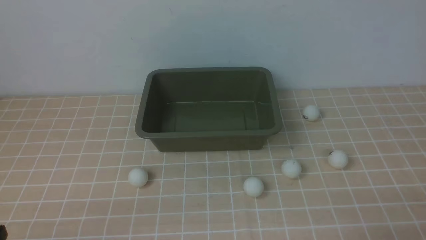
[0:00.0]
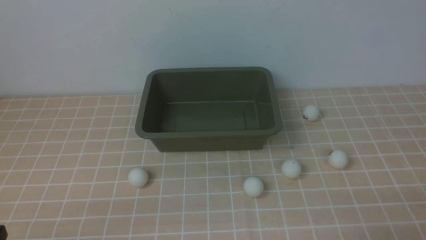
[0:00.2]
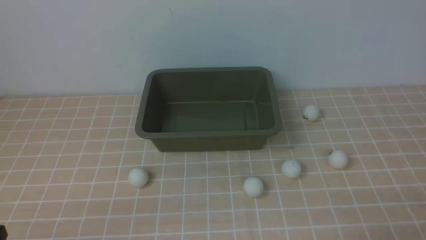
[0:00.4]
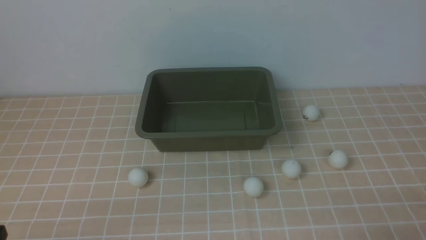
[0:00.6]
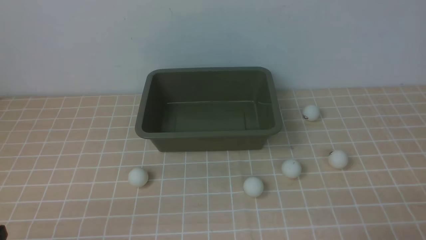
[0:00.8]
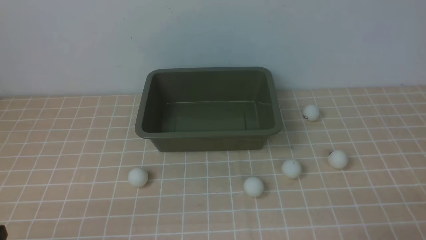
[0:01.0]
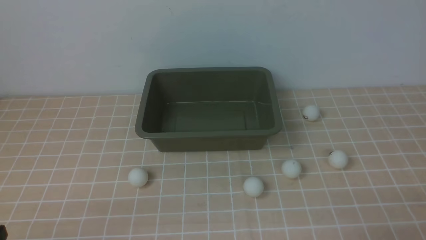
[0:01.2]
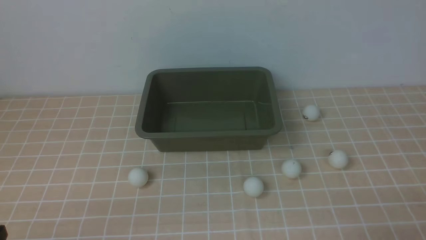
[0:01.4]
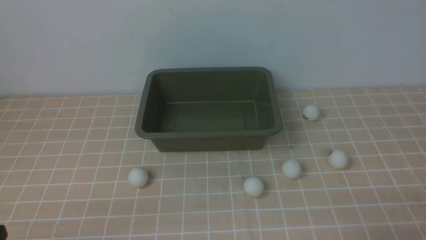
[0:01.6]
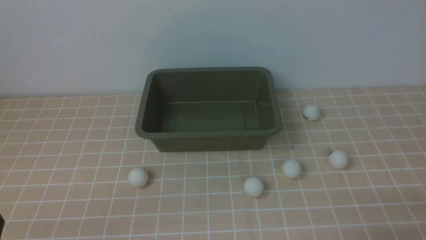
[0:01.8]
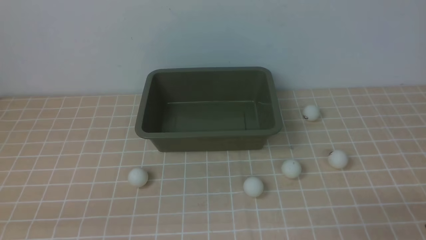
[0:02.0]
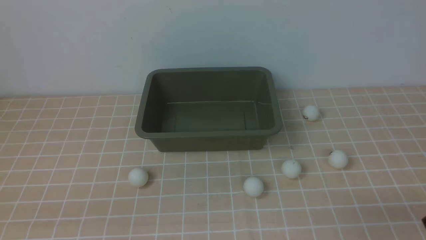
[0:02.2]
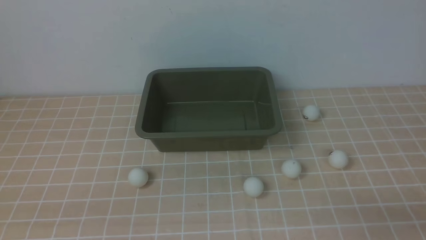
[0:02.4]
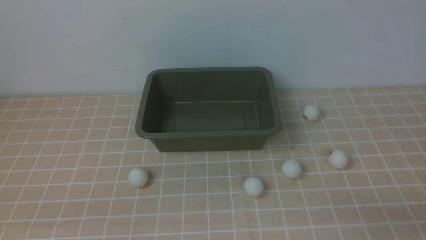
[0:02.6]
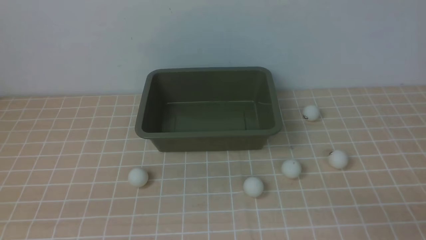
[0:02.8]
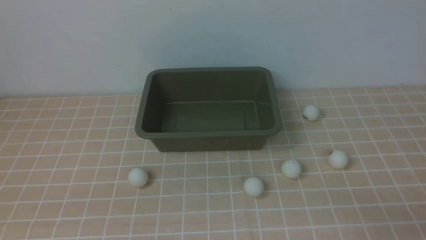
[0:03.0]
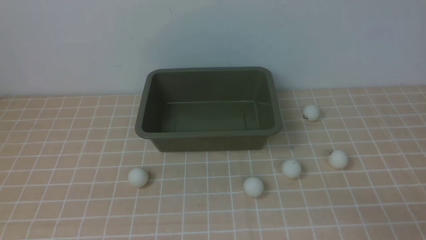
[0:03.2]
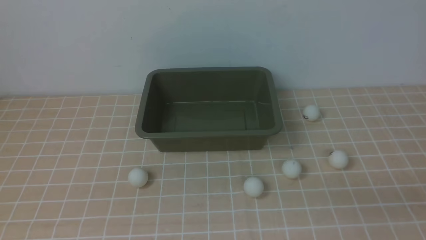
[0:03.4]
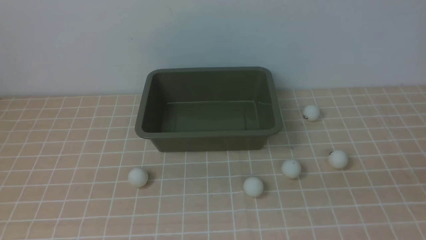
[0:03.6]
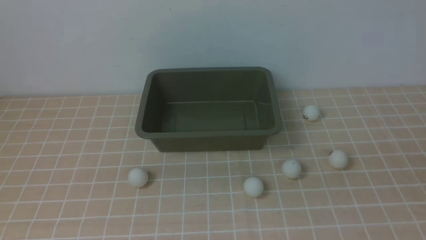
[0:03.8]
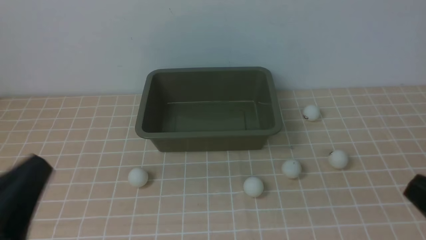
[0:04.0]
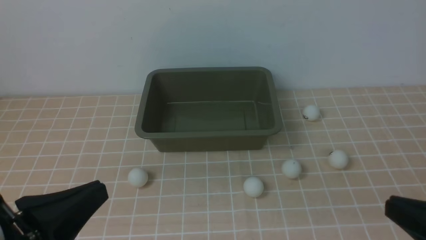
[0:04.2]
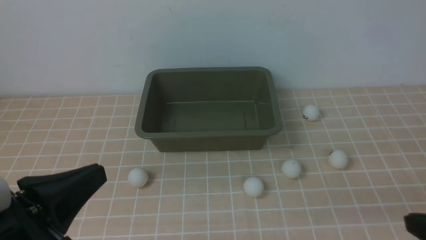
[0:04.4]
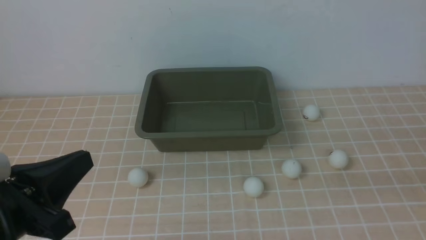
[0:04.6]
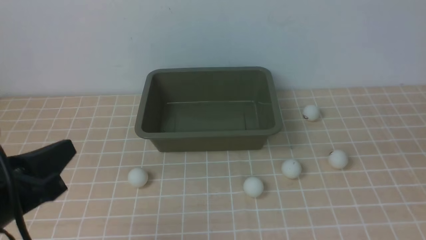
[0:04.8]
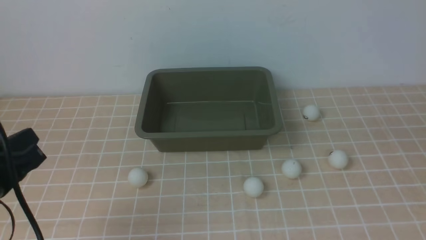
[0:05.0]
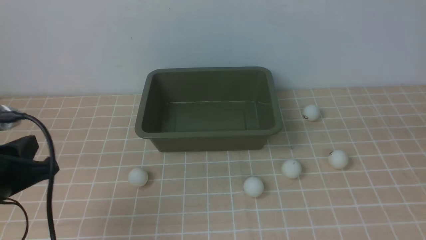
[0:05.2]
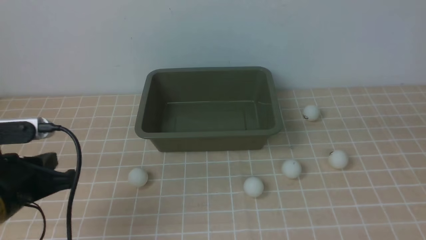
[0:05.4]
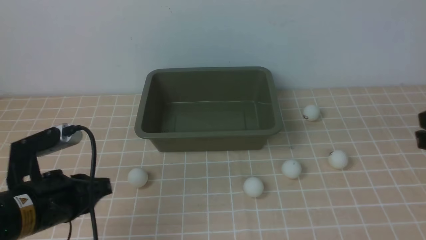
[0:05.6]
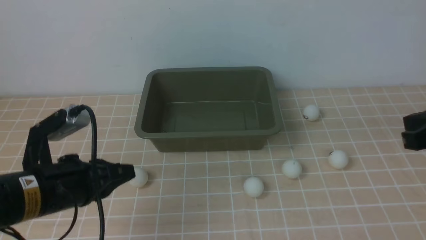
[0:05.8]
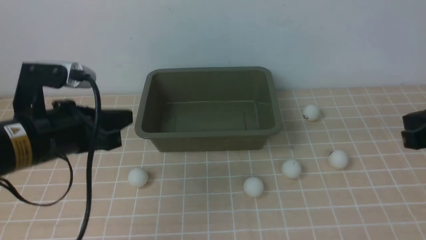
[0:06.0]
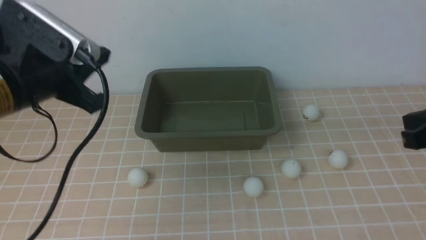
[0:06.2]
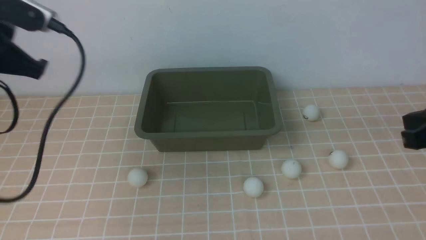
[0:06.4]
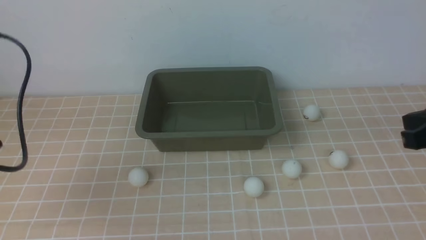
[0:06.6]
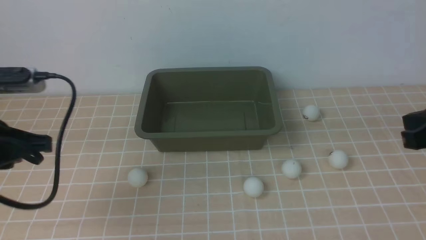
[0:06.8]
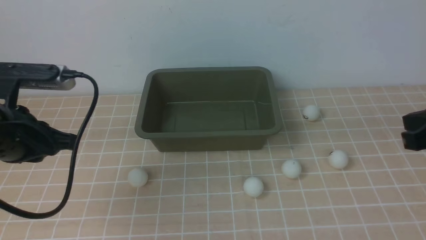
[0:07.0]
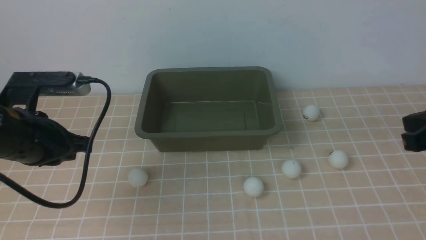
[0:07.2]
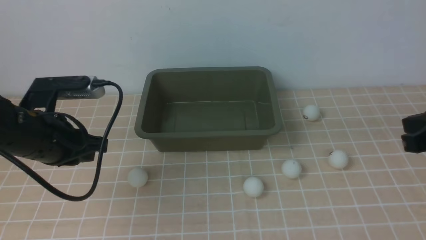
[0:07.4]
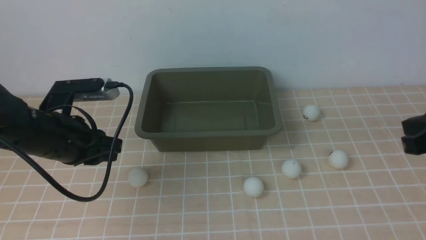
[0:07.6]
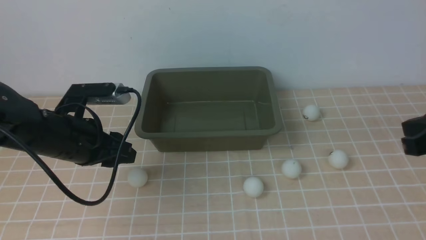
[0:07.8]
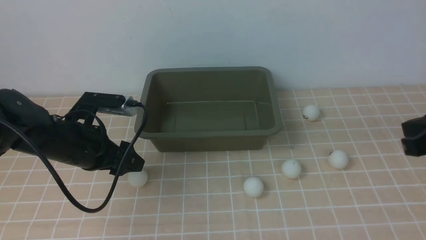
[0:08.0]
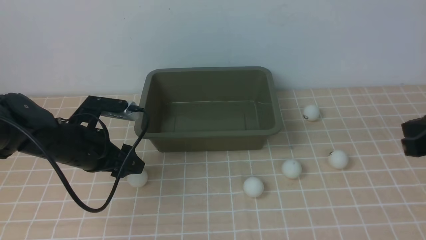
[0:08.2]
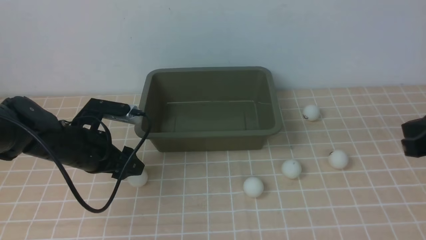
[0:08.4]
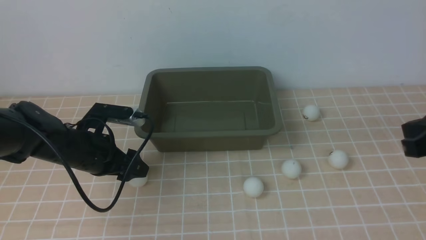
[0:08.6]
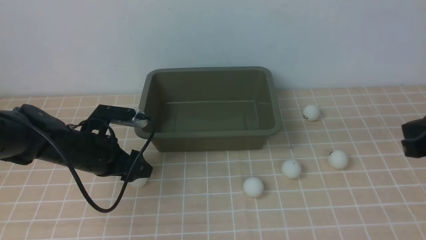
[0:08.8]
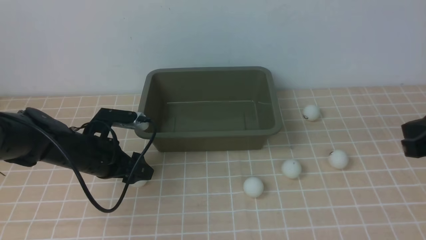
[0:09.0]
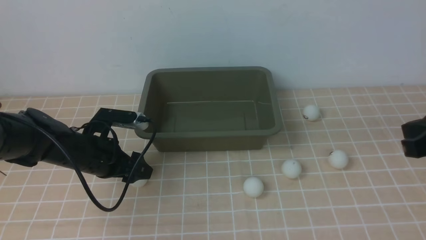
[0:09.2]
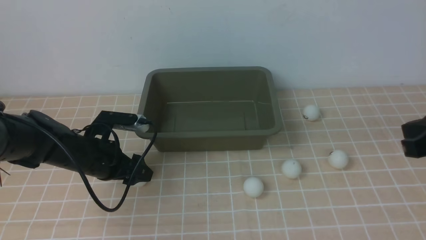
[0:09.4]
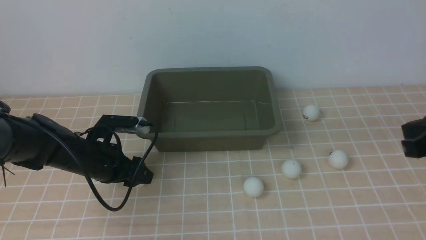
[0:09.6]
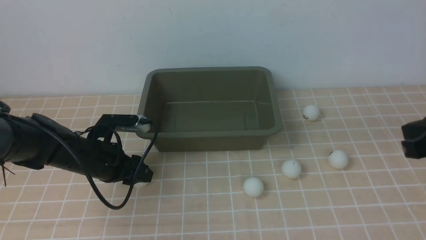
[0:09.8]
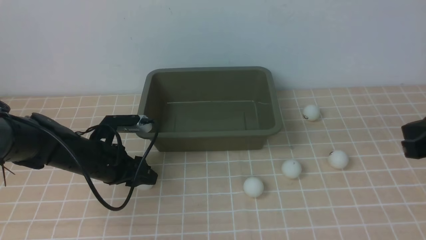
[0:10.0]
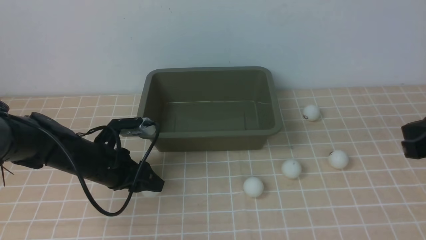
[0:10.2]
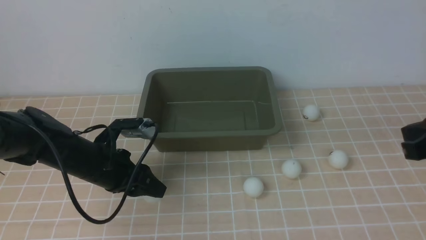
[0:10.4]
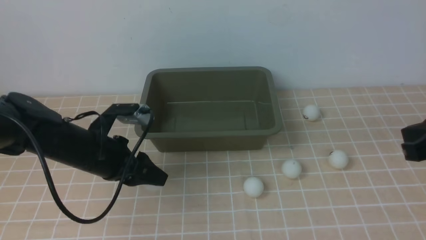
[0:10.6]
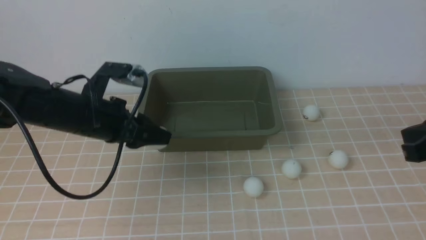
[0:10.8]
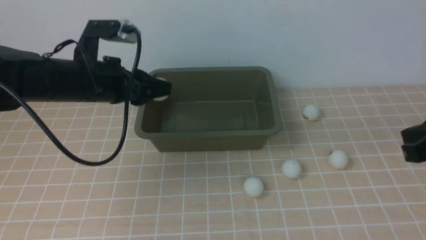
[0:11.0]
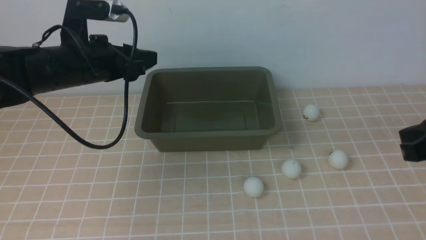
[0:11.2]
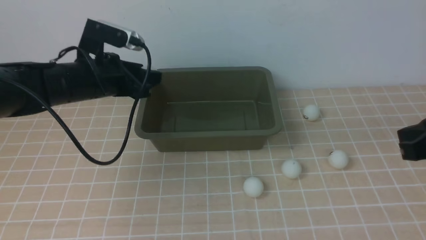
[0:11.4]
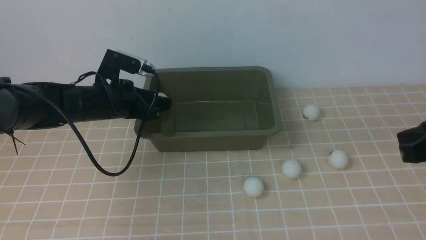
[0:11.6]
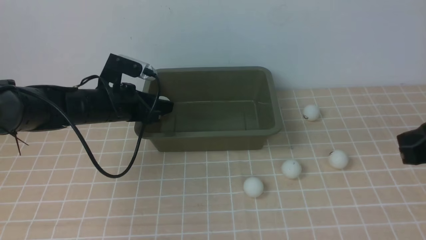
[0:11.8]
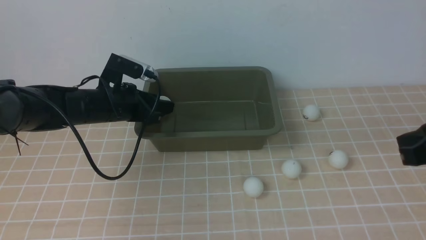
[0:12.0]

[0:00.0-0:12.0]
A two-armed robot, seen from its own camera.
Step, 0:00.0 to 0:10.4: use the left arm to clamp the table tennis ball closest to it.
0:00.0 to 0:01.6: Neither gripper changes place.
0:03.0 to 0:04.4: The left gripper heads to the right, covering some 5 cm.
0:04.4 to 0:06.0: The grippers both shift forward by some 10 cm.
0:06.0 to 0:07.6: The left gripper goes roughly 5 cm forward and downward.
0:07.6 to 0:09.0: The left gripper heads downward, covering approximately 10 cm, and opens.
0:09.0 to 0:10.4: The left gripper closes its fingers.
0:10.4 to 0:12.0: The left gripper goes about 10 cm forward, and travels upward and back again, roughly 10 cm each way.

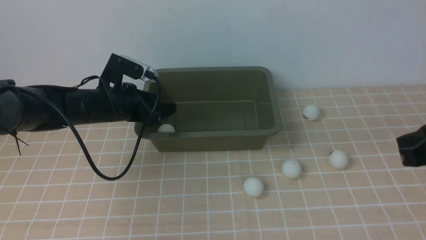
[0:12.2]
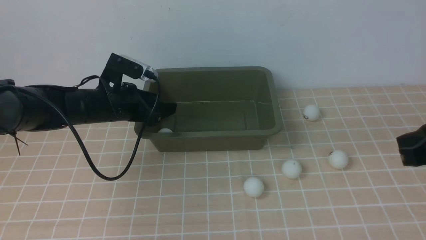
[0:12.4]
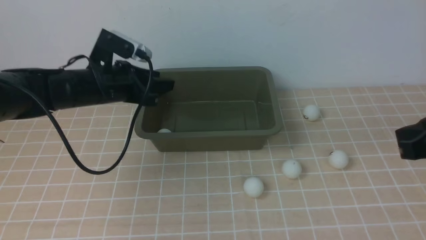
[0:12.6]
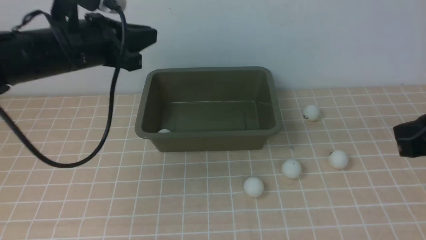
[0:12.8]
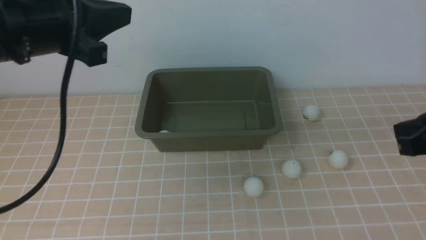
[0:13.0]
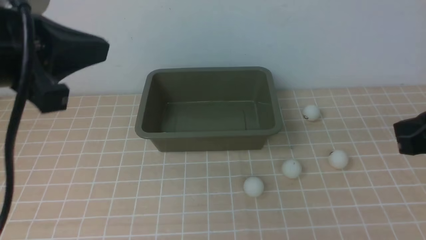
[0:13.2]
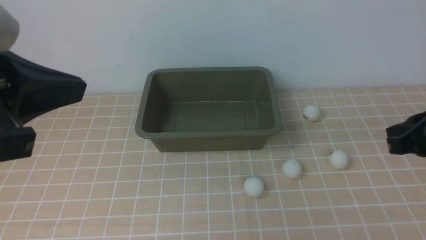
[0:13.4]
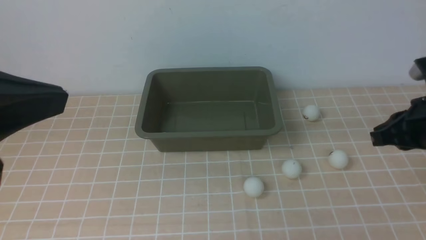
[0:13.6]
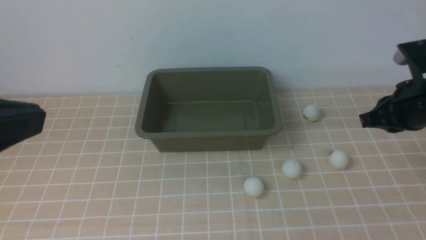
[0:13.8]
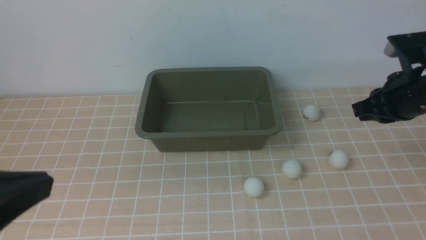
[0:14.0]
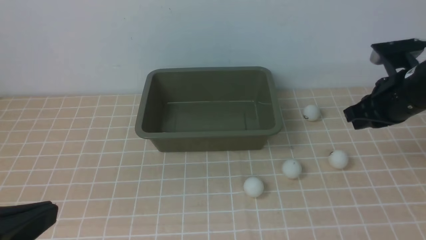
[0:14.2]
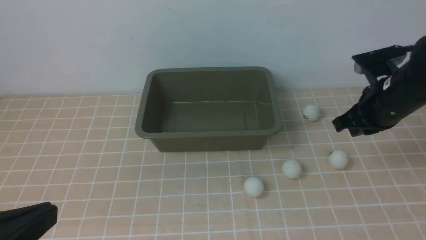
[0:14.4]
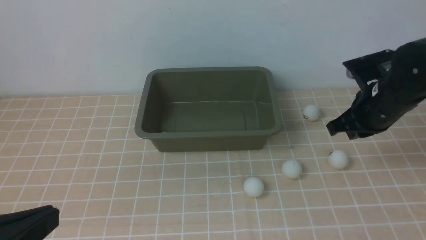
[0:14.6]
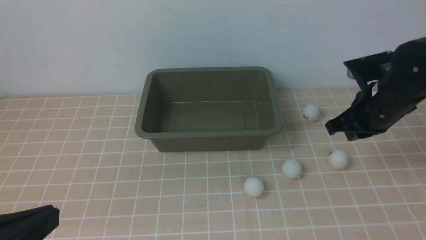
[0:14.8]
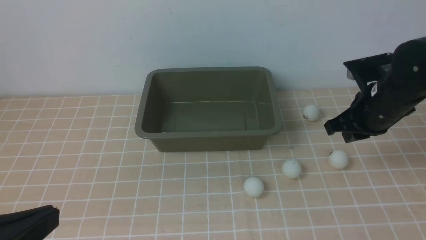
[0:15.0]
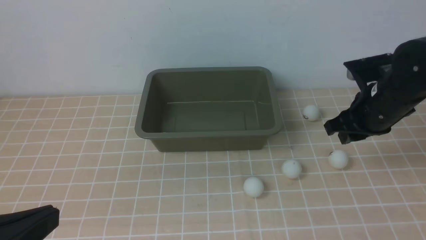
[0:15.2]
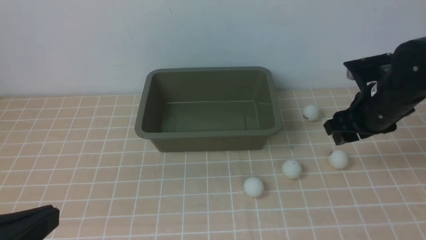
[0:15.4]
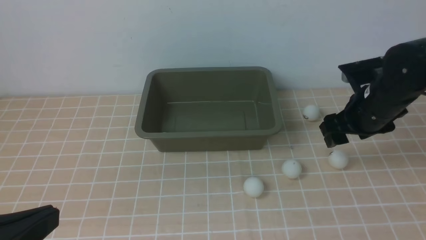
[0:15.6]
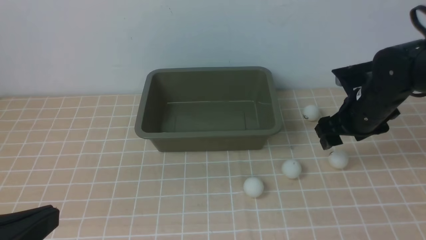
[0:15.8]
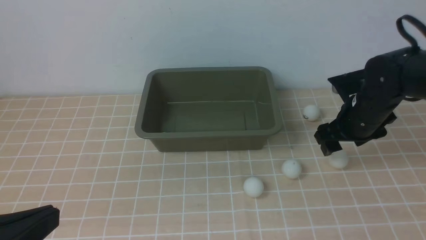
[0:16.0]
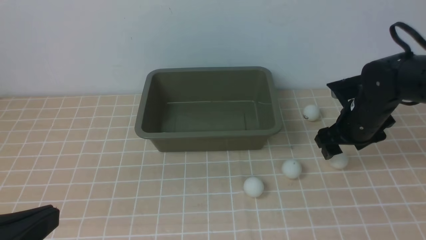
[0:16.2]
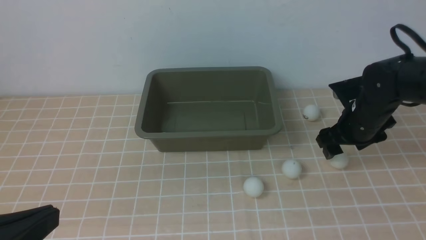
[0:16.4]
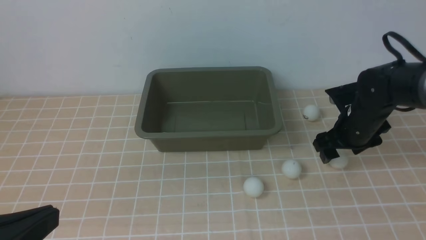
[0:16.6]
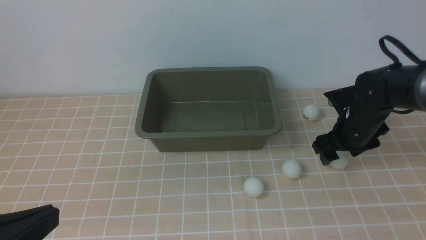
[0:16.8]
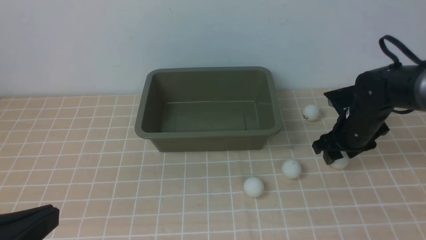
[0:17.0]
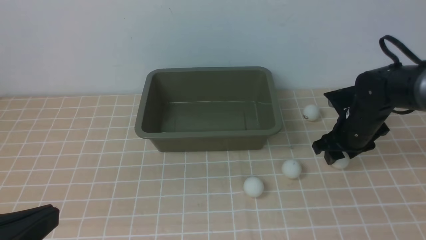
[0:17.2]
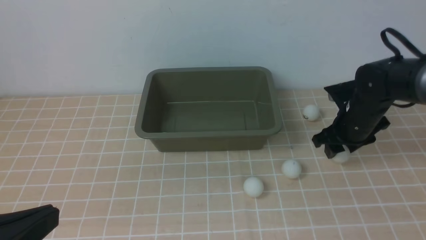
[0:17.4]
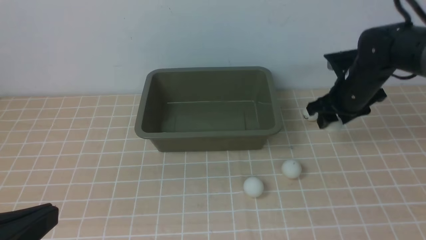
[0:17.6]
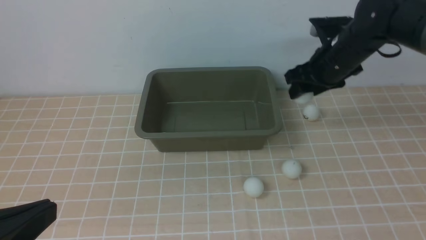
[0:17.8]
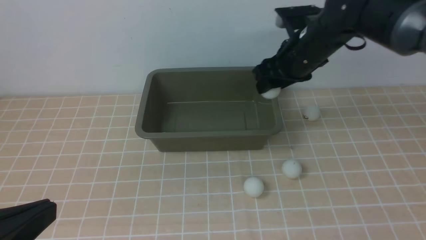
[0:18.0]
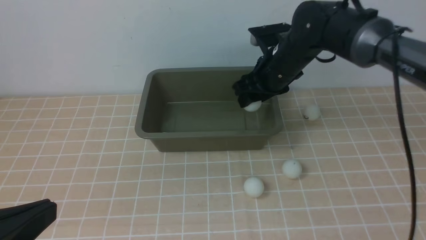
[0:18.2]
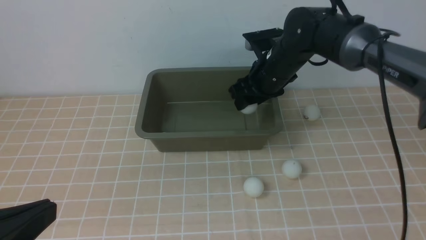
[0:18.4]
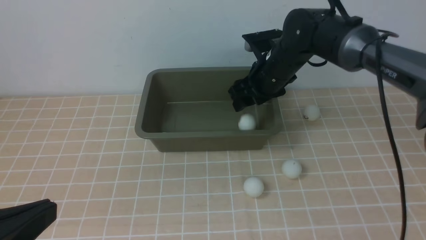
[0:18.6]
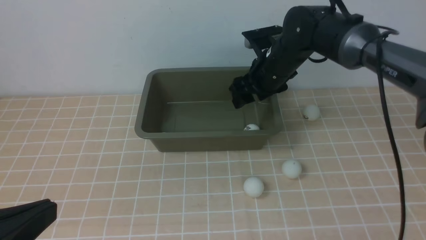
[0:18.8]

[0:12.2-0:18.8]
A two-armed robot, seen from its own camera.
Step, 0:13.0 to 0:17.6: use the right arm to clamp the table tennis ball closest to it.
0:12.2 to 0:13.8: The left gripper goes about 40 cm backward and upward, and closes its fingers. The right gripper moves forward, some 10 cm.
0:13.8 to 0:15.4: The right gripper shifts by some 5 cm, and opens; the left gripper shifts about 10 cm downward.
0:15.4 to 0:17.2: The right gripper shifts about 5 cm downward.
0:17.2 to 0:18.8: The right gripper is displaced to the left, upward and forward by approximately 20 cm.
